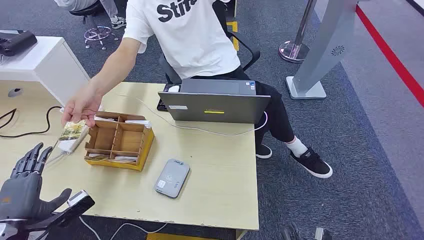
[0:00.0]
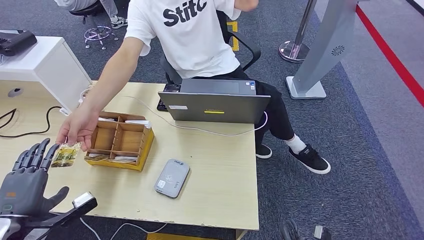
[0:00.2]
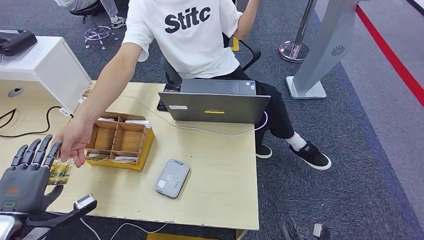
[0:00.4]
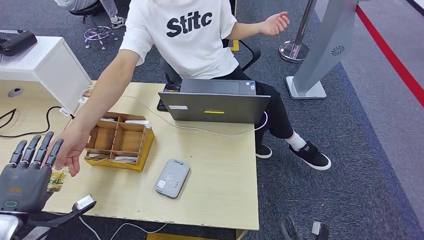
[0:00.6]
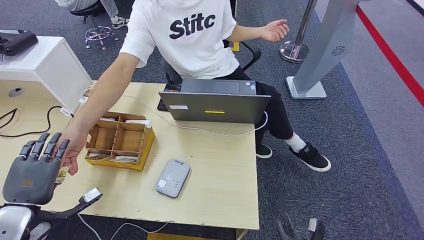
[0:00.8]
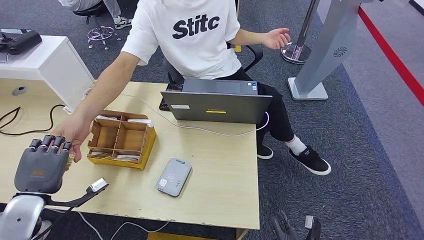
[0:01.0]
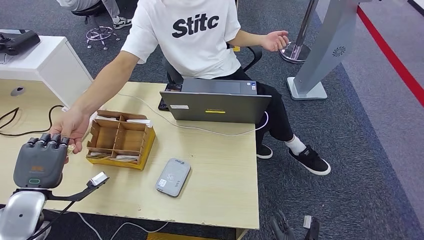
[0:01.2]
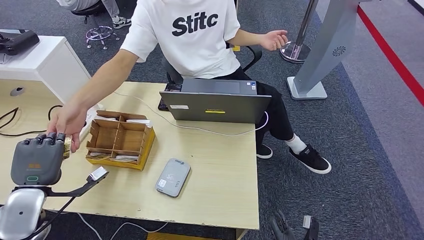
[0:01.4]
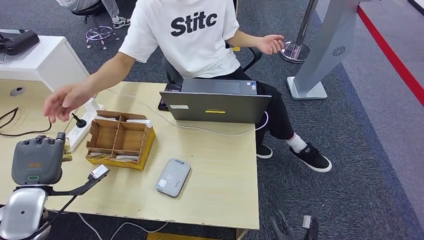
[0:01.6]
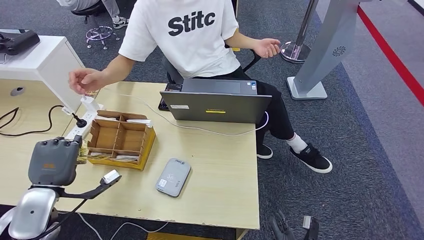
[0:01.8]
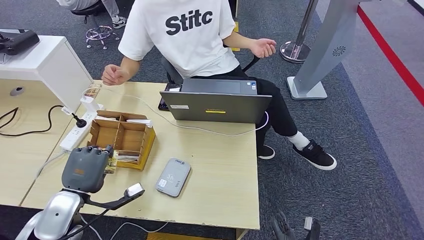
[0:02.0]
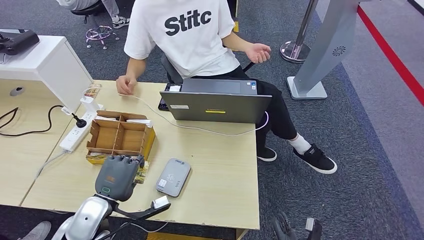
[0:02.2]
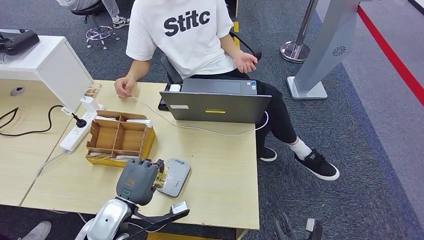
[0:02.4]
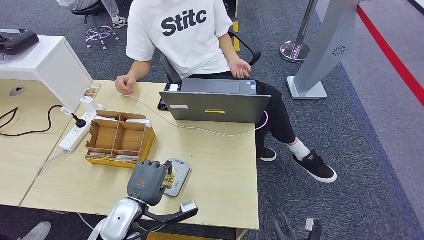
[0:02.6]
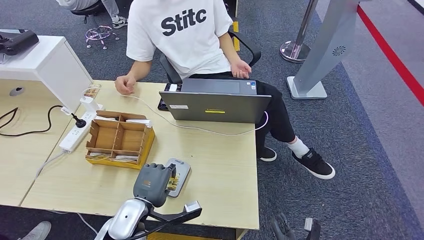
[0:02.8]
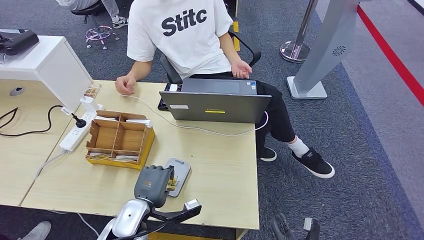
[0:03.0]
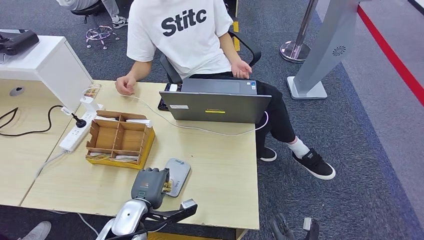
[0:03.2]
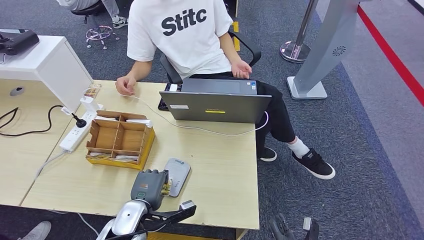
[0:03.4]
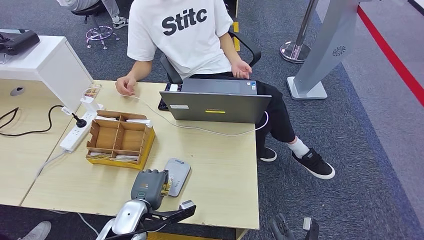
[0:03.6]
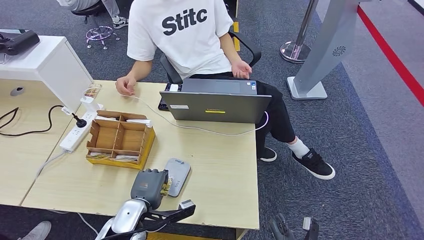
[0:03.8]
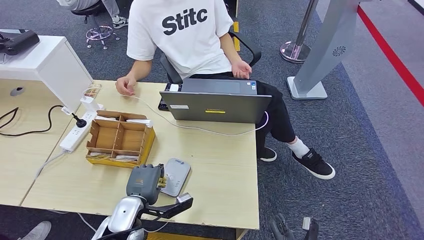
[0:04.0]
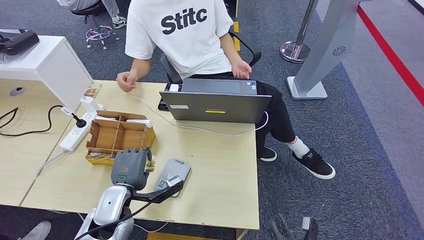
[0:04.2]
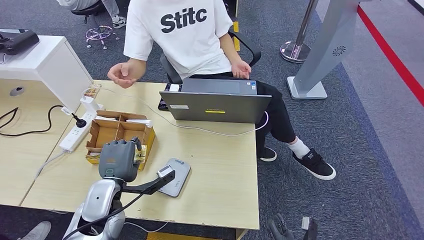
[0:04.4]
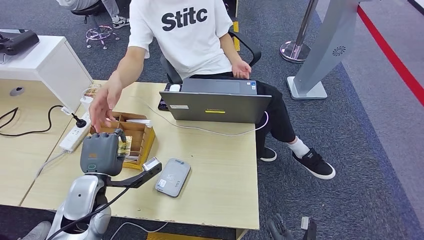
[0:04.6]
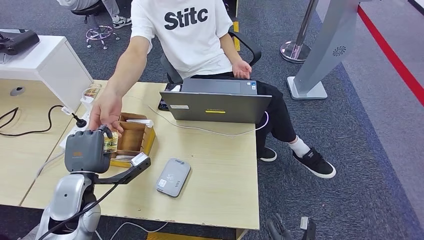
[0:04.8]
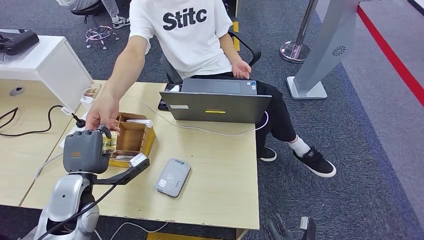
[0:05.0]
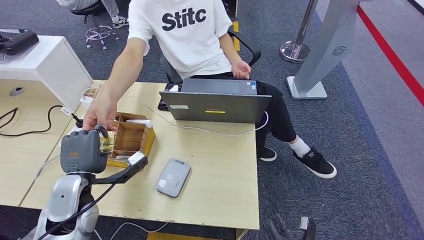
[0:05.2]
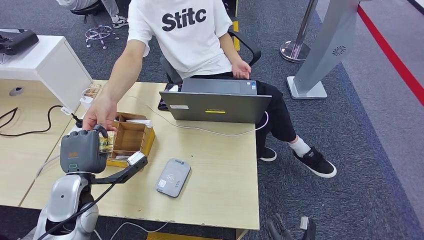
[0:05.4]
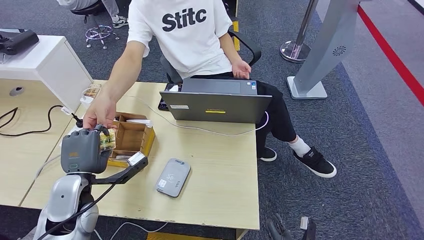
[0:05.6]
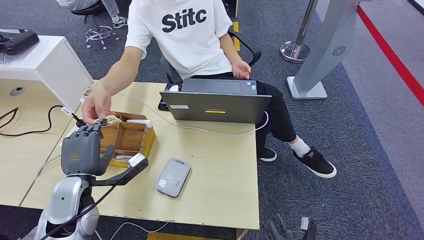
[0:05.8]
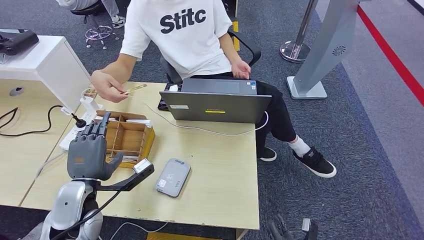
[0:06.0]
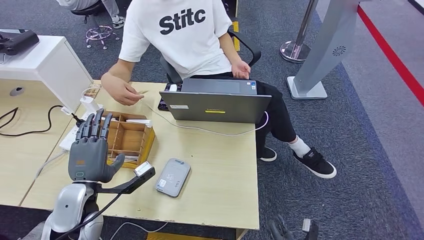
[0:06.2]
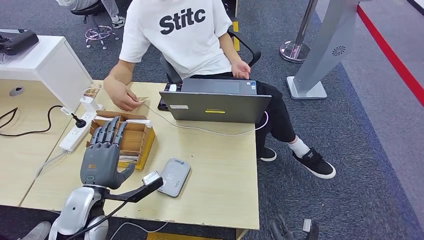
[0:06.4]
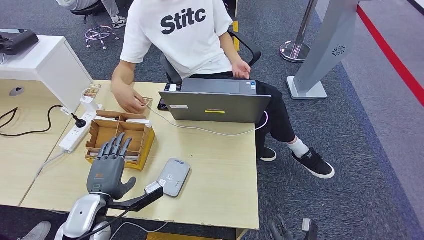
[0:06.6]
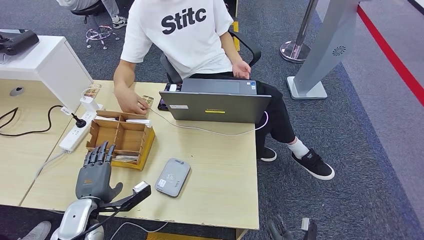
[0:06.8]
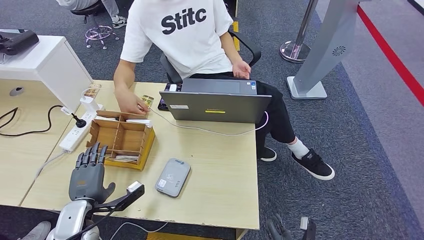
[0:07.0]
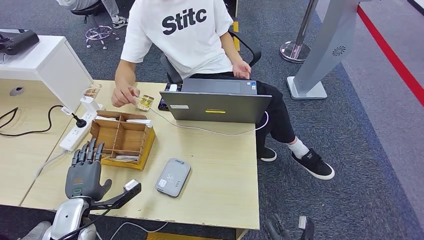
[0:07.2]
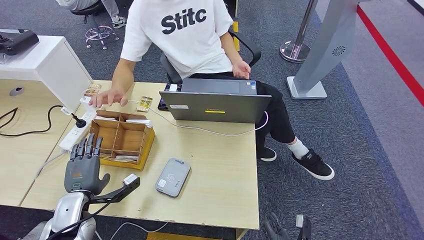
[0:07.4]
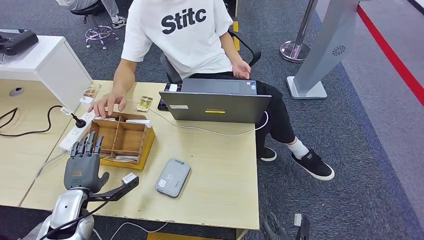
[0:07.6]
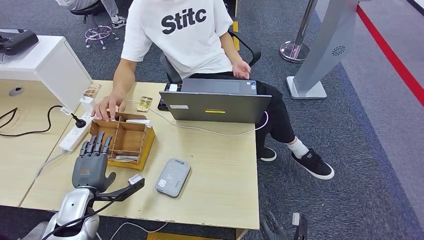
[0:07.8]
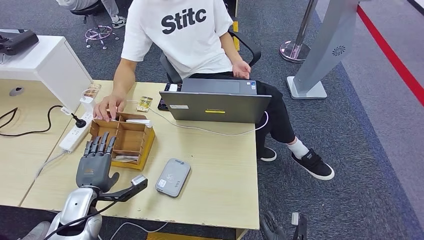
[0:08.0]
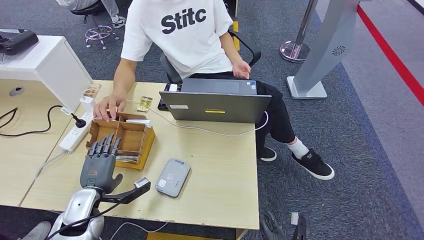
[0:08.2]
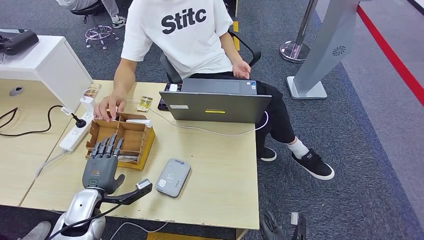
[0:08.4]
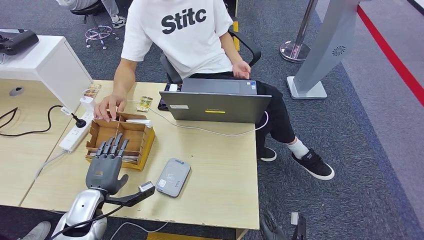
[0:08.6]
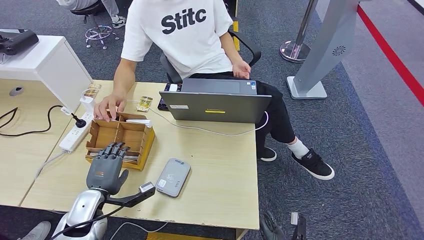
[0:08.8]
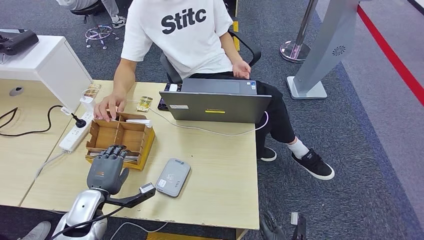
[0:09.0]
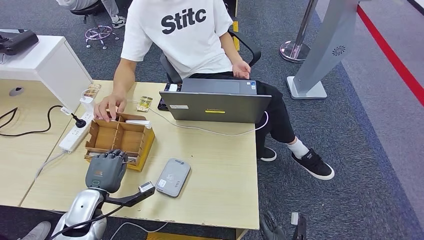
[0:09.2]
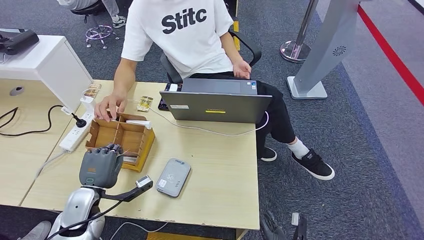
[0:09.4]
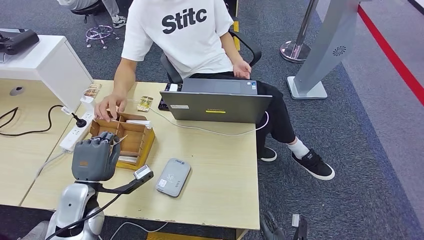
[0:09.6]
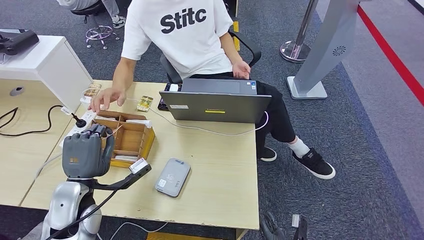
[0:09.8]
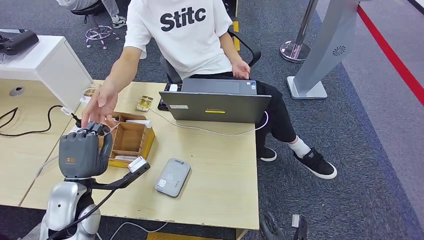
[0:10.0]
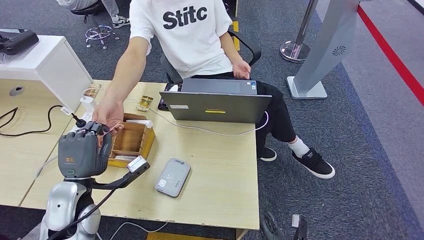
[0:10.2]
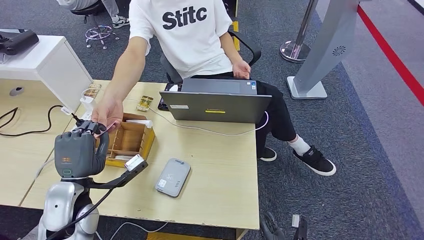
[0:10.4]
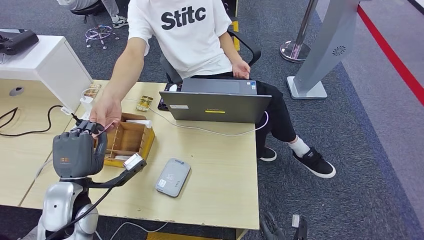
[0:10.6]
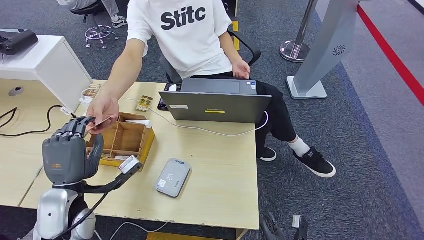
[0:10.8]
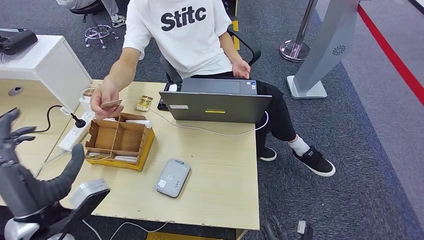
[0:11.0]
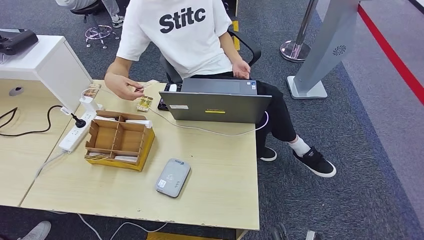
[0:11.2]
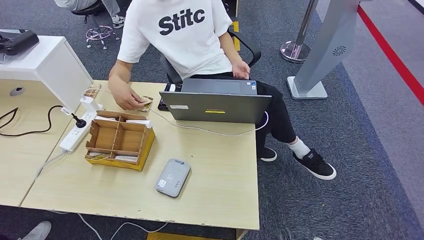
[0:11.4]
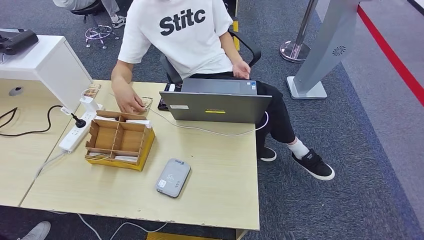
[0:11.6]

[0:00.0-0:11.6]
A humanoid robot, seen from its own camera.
Step, 0:00.0 to 0:01.8: Take the ID card from the person's hand.
Step, 0:02.2 to 0:04.2: Place the ID card on the card reader.
Step, 0:04.4 to 0:06.0: Hand the ID card to the person.
Step, 0:08.6 to 0:10.0: Pick up the room key from the key card box.
Step, 0:10.2 to 0:11.6: Hand the room key to the person.
0:02.8 to 0:04.4: The left hand goes some 5 cm to the left.
0:04.4 to 0:05.8: The left hand moves to the left, some 5 cm.
0:05.8 to 0:07.2: The left hand shifts about 10 cm downward.
0:07.2 to 0:08.8: The hands make only small movements.
0:08.8 to 0:10.2: The left hand is displaced upward by about 10 cm.
0:10.2 to 0:11.6: The left hand shifts roughly 20 cm backward and to the left. The right hand shifts approximately 5 cm backward.

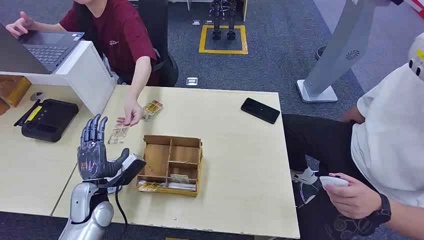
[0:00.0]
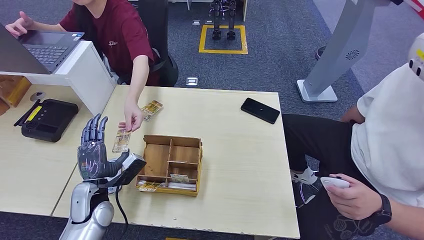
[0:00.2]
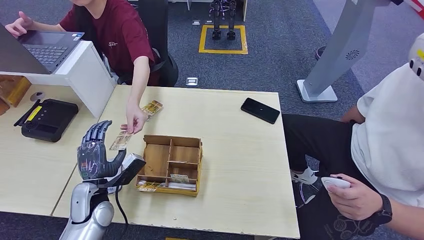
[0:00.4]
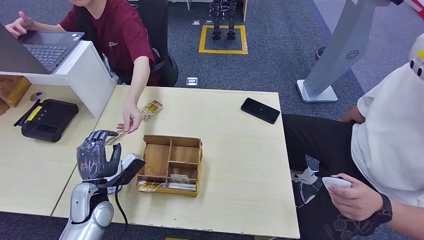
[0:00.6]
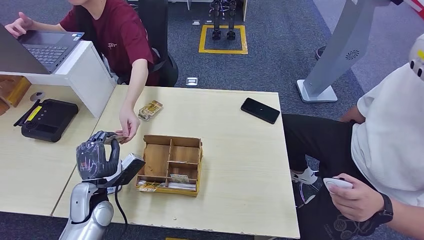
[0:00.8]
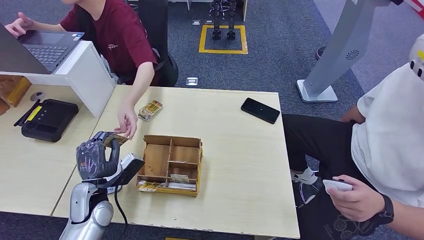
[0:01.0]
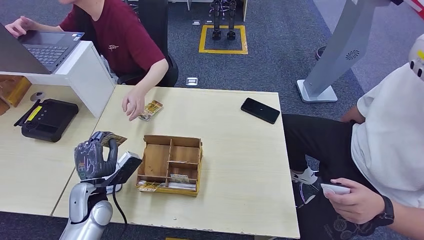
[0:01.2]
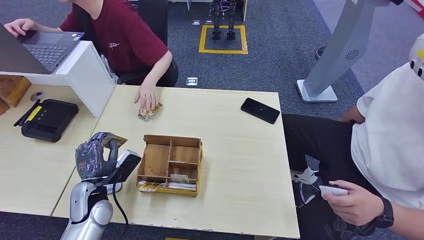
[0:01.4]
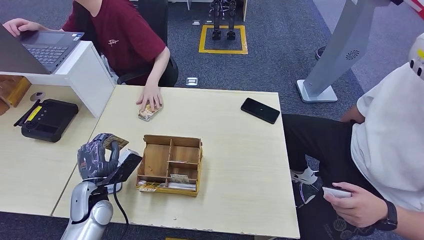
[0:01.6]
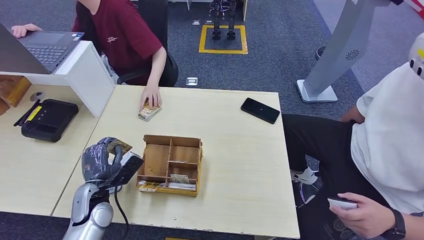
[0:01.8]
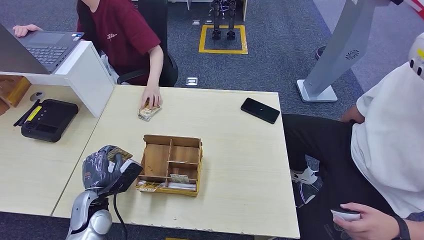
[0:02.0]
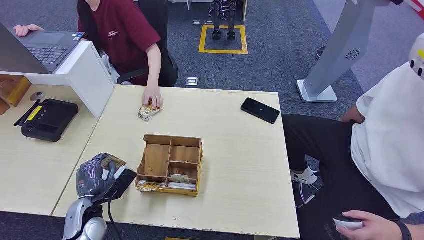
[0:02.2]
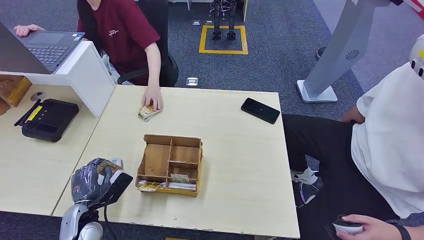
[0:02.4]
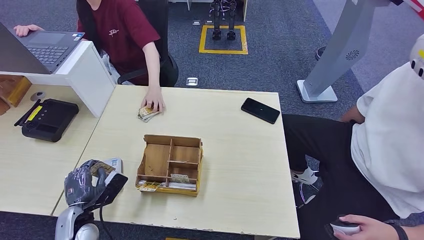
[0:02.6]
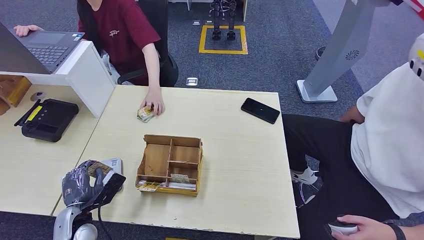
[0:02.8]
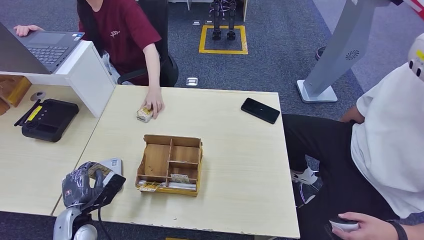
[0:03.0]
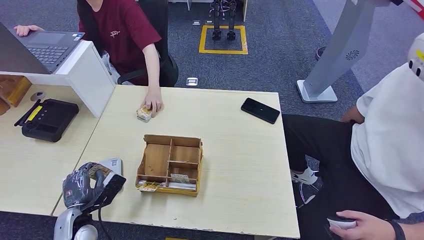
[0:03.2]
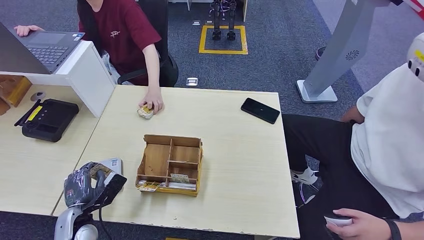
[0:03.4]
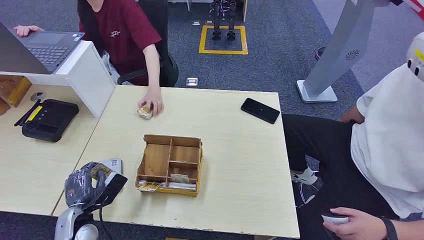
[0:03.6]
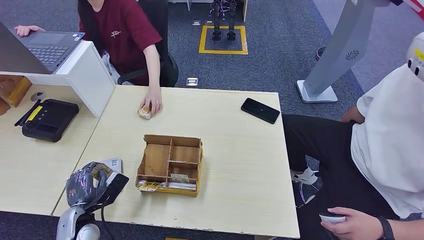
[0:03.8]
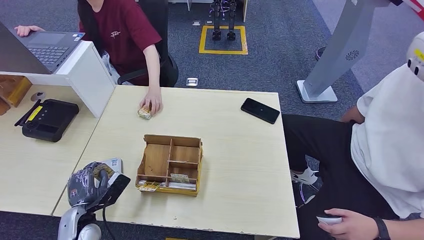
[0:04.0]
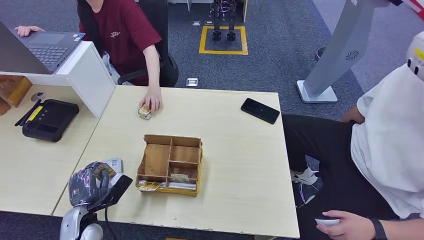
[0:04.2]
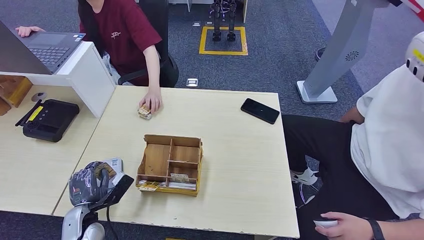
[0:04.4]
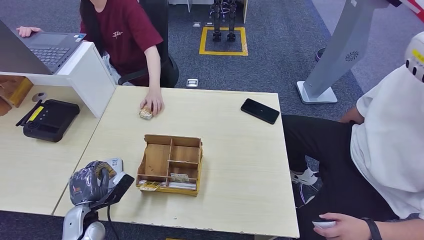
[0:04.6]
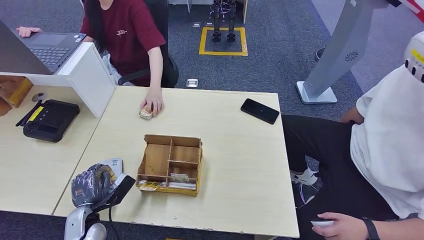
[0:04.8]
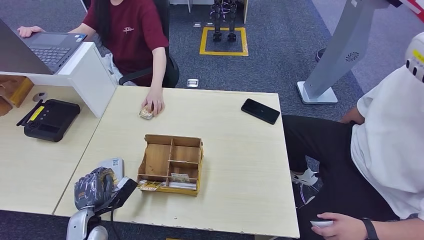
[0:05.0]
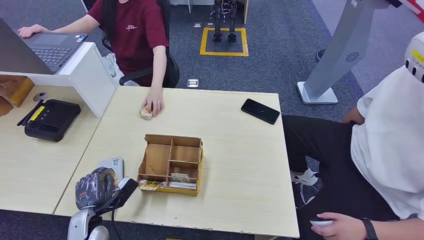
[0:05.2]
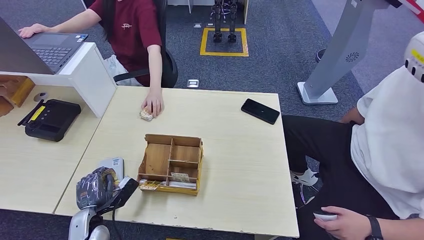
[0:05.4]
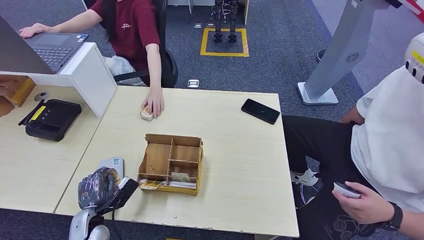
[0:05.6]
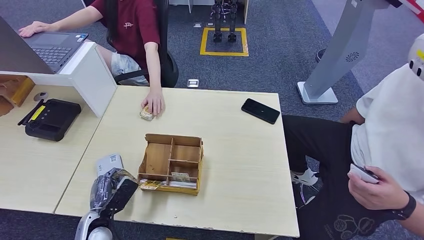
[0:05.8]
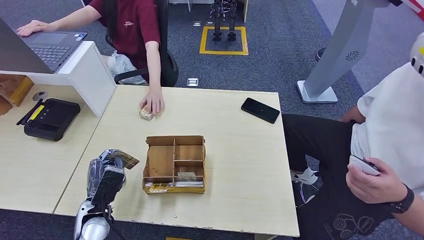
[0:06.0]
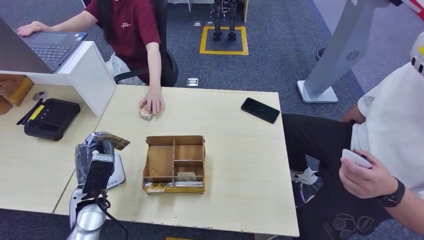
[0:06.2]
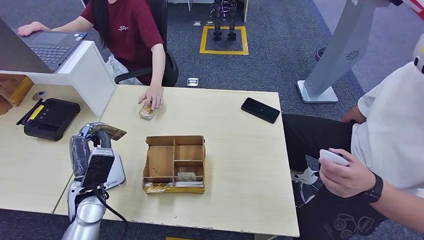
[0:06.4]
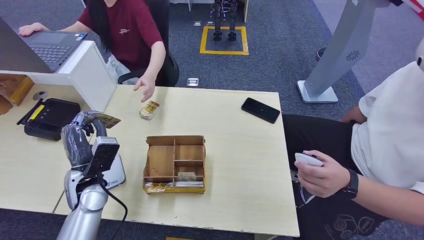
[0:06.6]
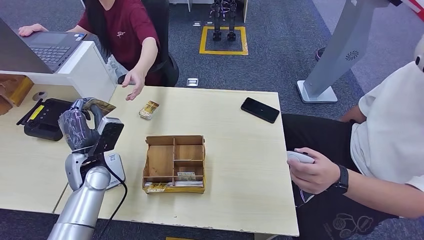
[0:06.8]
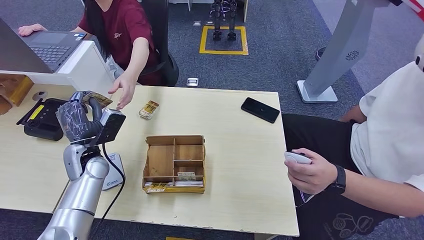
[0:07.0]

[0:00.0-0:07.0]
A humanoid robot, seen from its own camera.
Step, 0:00.0 to 0:01.0: Take the ID card from the person's hand.
Step, 0:01.4 to 0:04.6: Place the ID card on the card reader.
0:01.4 to 0:02.8: The left hand goes approximately 5 cm backward.
0:02.8 to 0:05.6: The hands stay close to where they were, moving slightly.
